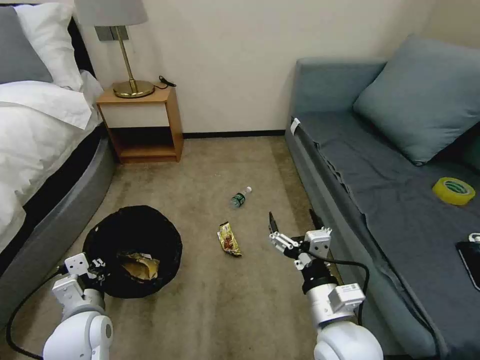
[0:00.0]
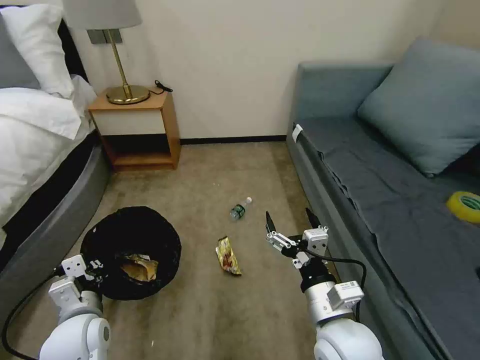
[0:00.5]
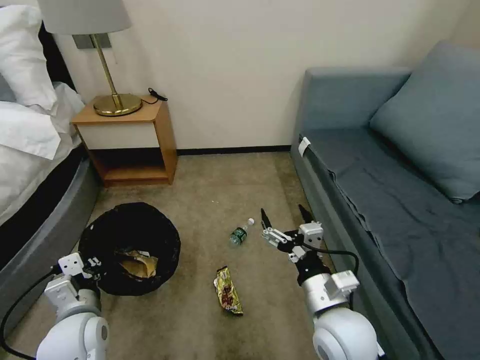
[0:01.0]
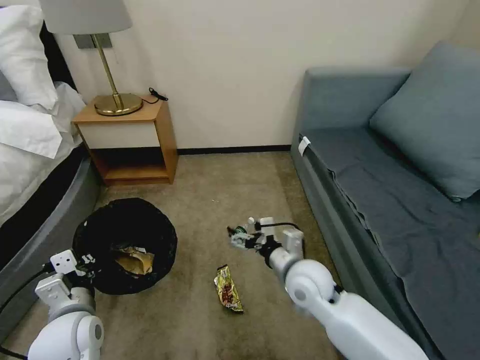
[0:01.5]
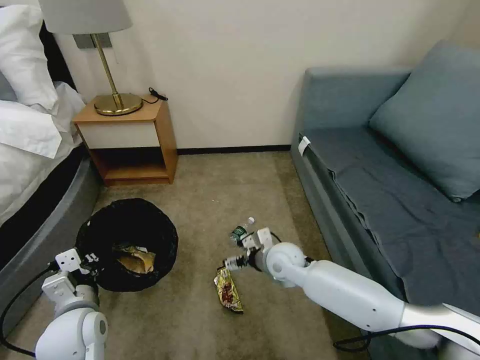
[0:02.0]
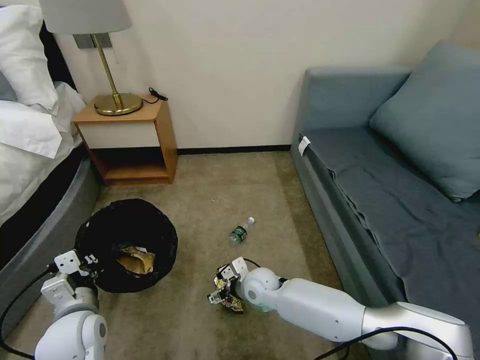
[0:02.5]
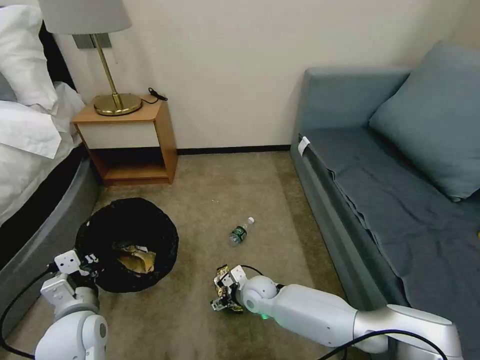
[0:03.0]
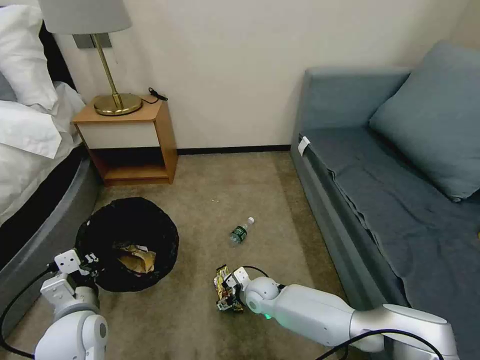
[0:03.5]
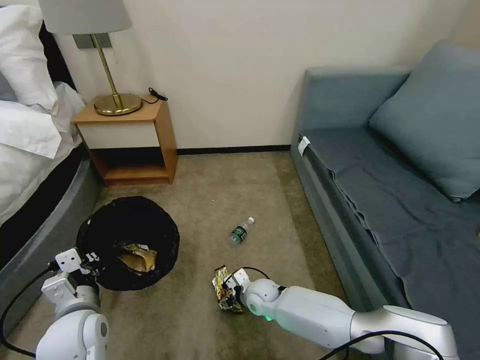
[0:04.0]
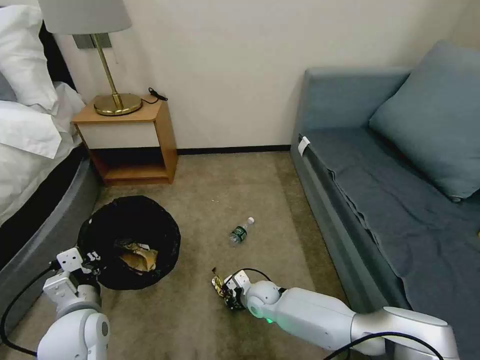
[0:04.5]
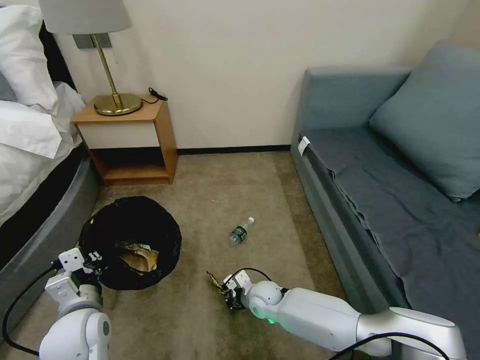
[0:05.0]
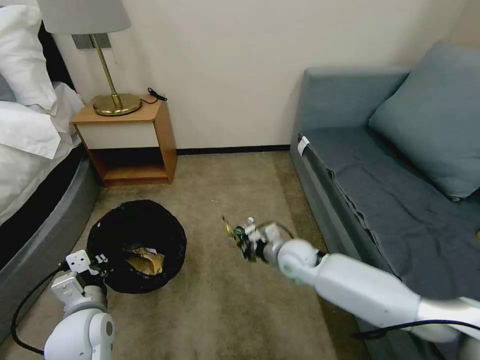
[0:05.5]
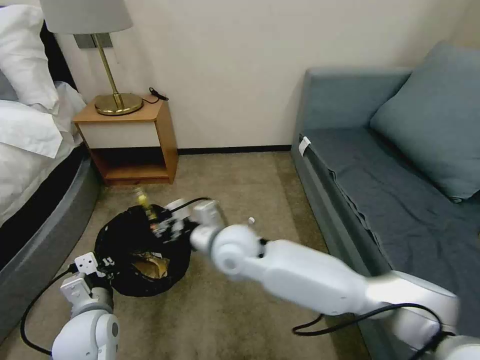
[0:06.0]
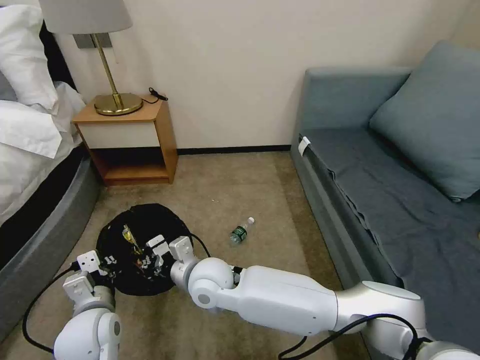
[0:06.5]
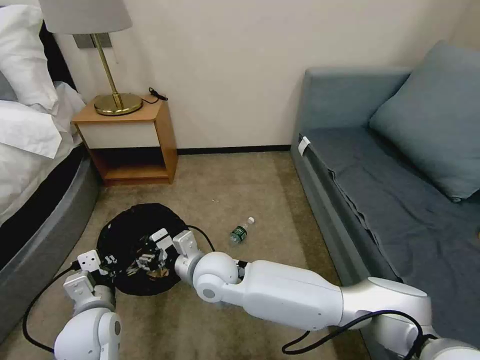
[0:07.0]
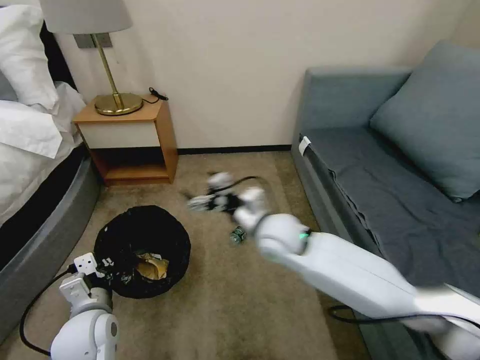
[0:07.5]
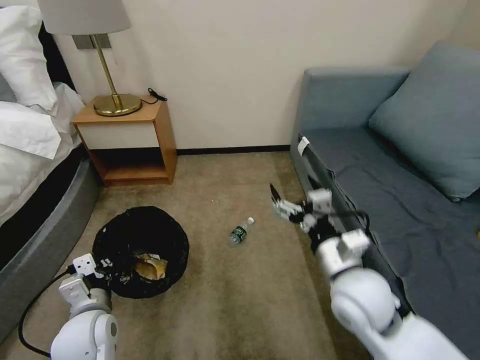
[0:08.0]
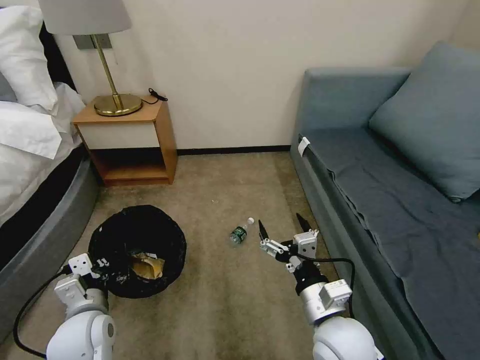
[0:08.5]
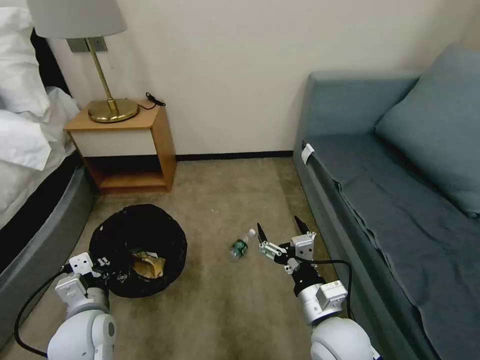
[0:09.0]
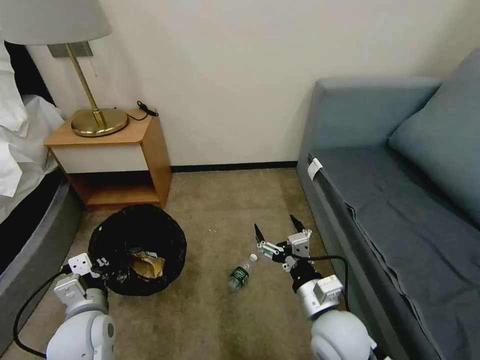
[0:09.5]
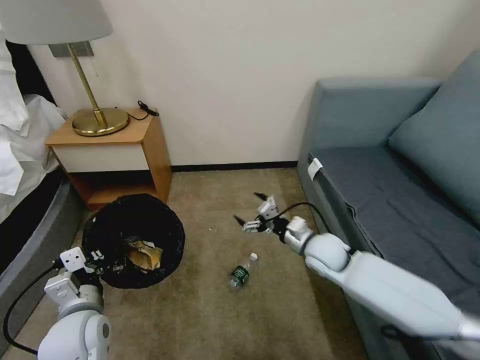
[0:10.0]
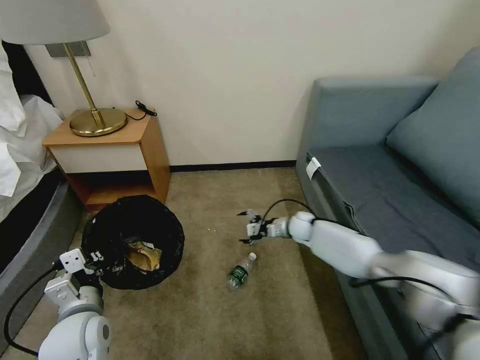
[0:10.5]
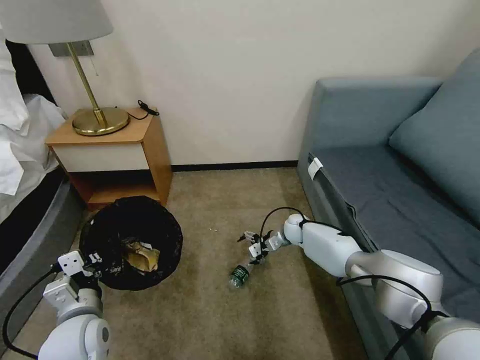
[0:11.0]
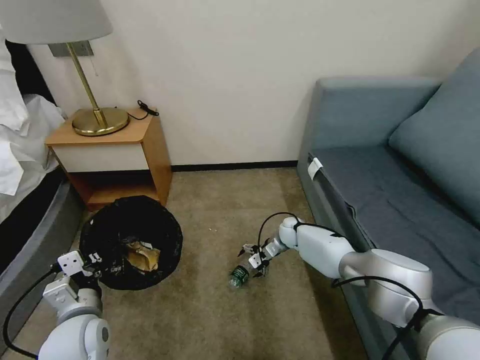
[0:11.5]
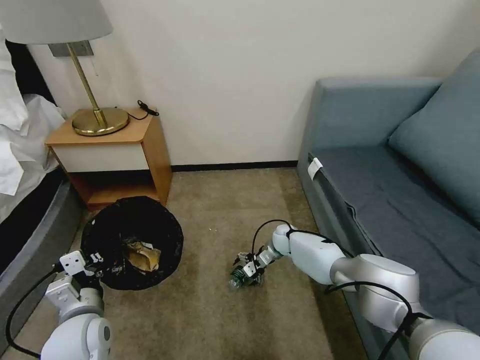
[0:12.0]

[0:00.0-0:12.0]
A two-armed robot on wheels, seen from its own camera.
Task of the whole recording: Pick up the trash bin, then pick up the garbage on the floor and place it into the trash bin.
0:00.0 to 0:02.0: The right gripper travels forward by approximately 20 cm.
0:02.0 to 0:04.0: The right gripper goes some 20 cm downward.
0:04.0 to 0:06.0: The right gripper moves upward, roughly 25 cm, and closes its fingers.
0:06.0 to 0:08.0: The right gripper goes approximately 25 cm to the right and backward, and opens.
0:08.0 to 0:10.0: The right gripper heads forward and downward, covering roughly 15 cm.
0:10.0 to 0:12.0: The right gripper shifts about 20 cm downward and forward.

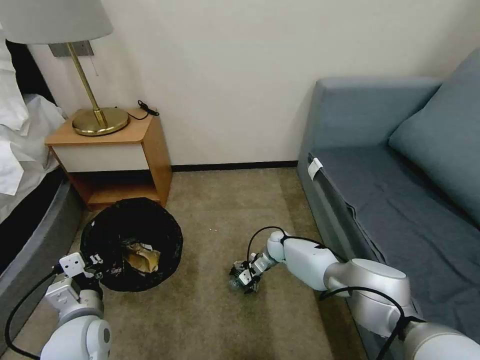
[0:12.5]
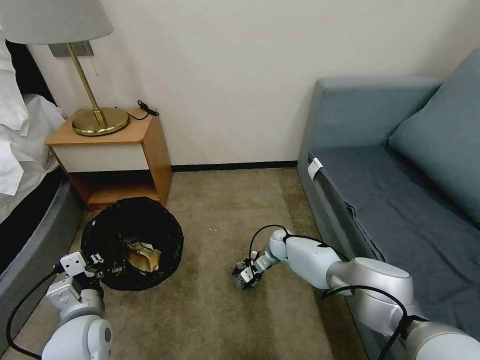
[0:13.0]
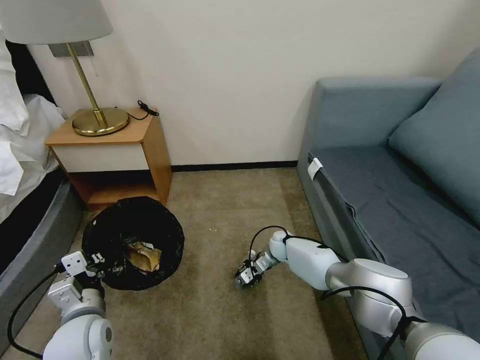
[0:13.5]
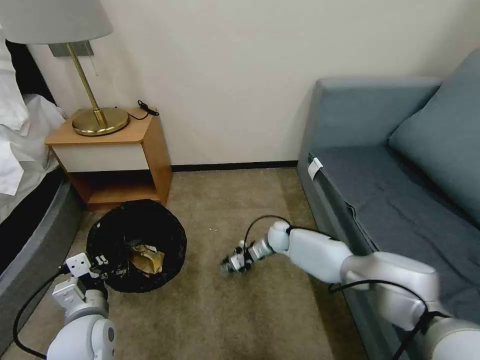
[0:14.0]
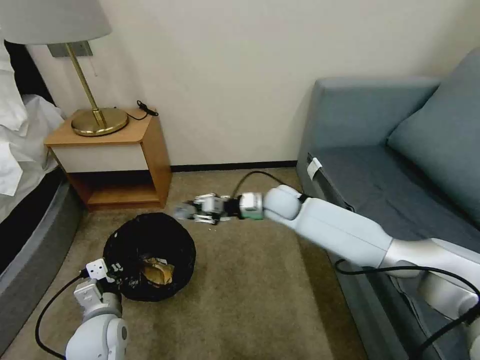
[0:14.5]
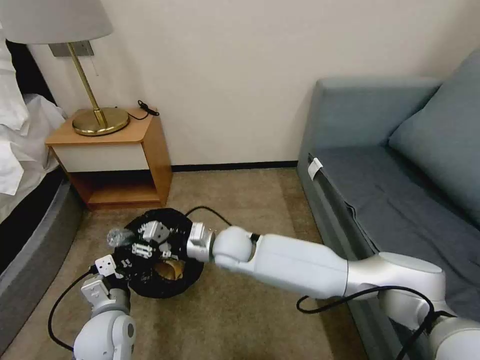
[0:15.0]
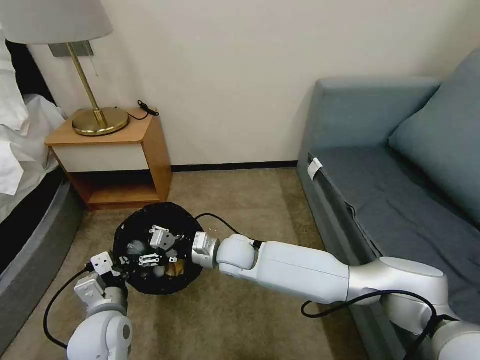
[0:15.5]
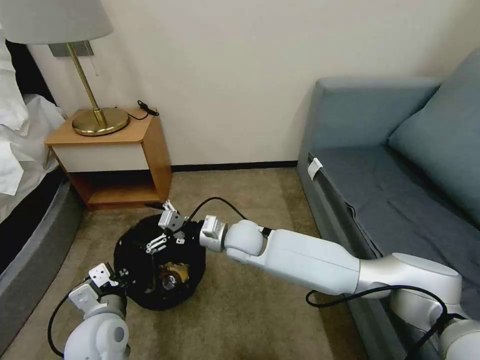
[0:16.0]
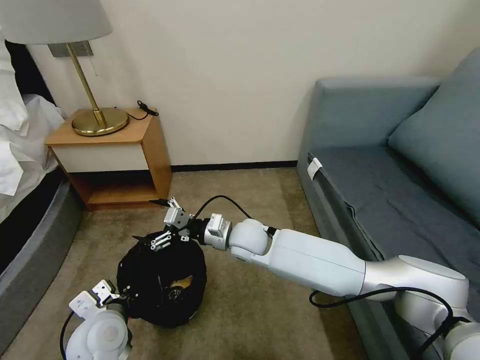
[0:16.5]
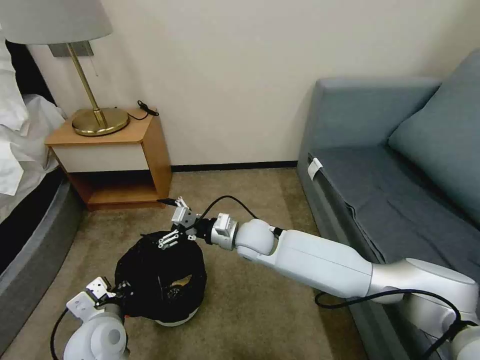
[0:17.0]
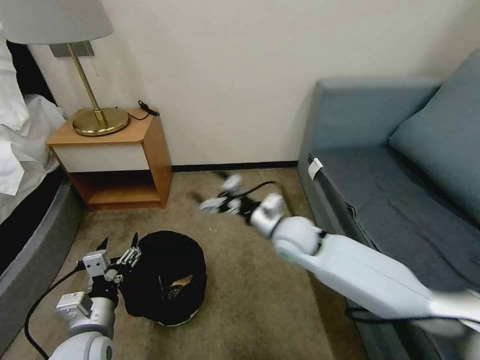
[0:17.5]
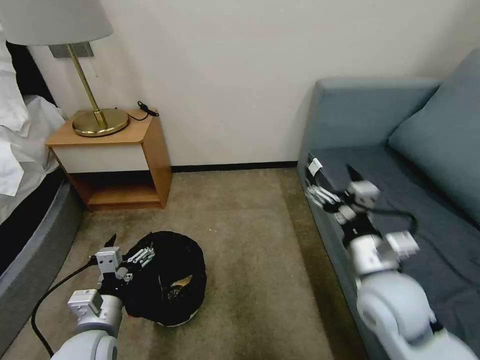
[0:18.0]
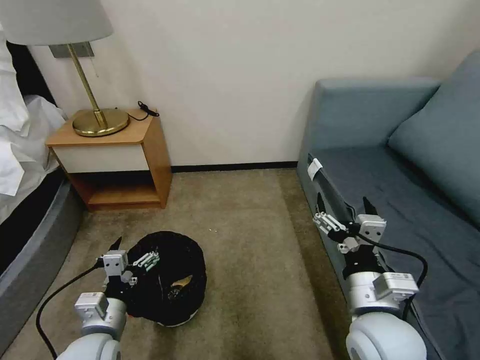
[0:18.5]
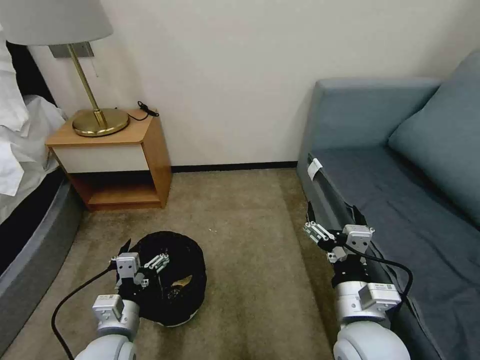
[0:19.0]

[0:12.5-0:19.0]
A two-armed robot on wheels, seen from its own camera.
Task of the whole recording: Pick up the trash bin, then pick up the garbage on the floor and place it into the trash bin.
0:12.5 to 0:14.5: The right gripper heads upward, covering about 25 cm, and closes up.
0:14.5 to 0:17.0: The right gripper goes about 10 cm backward and to the left, and opens.
0:17.0 to 0:19.0: The left gripper opens up, while the right gripper goes roughly 30 cm backward and to the right.
